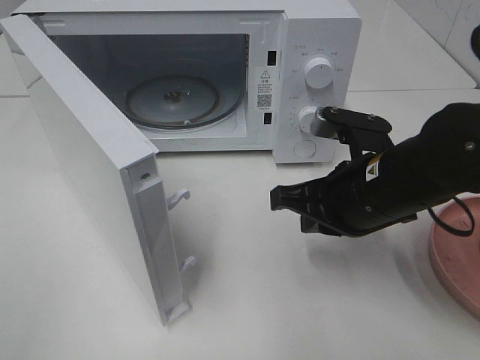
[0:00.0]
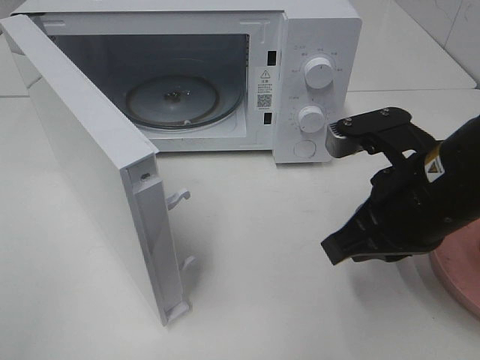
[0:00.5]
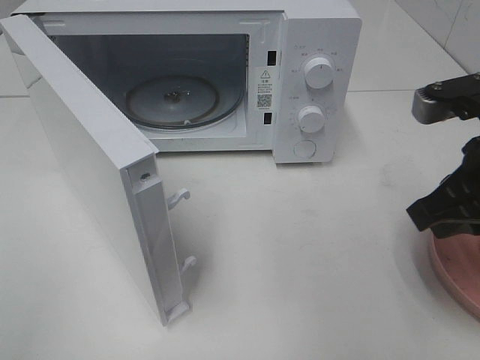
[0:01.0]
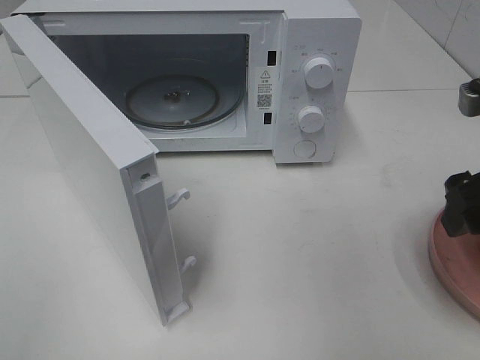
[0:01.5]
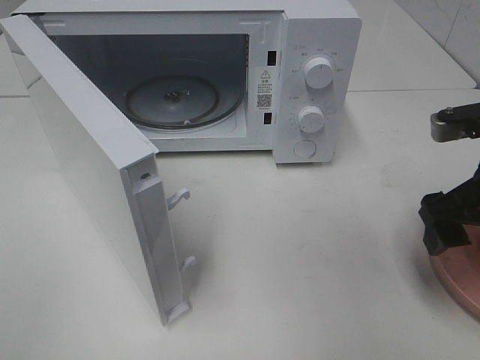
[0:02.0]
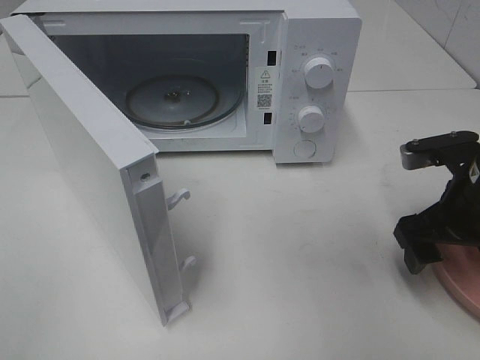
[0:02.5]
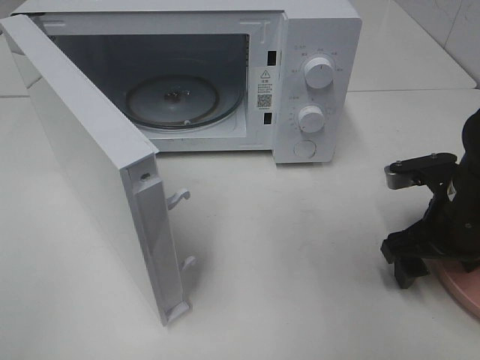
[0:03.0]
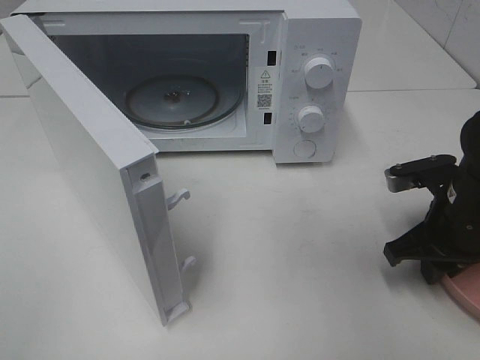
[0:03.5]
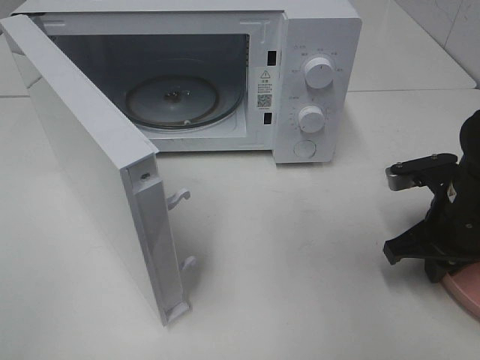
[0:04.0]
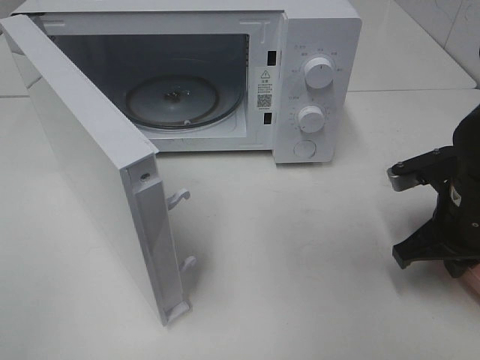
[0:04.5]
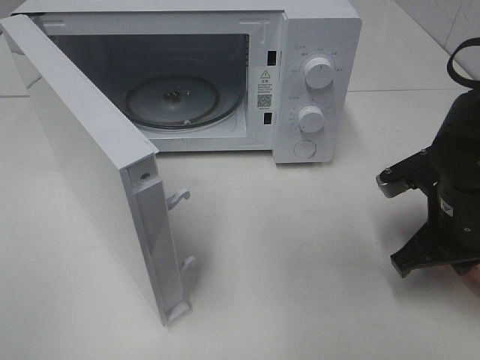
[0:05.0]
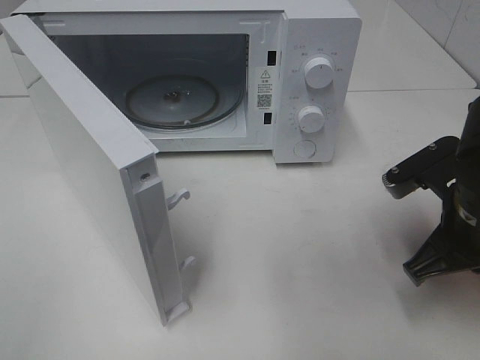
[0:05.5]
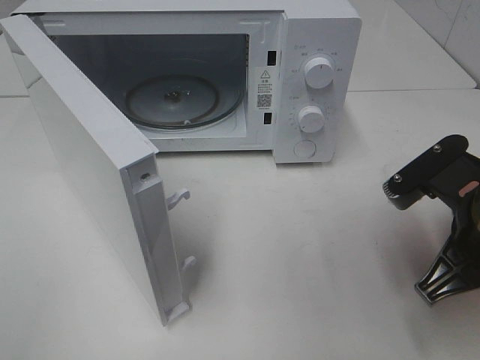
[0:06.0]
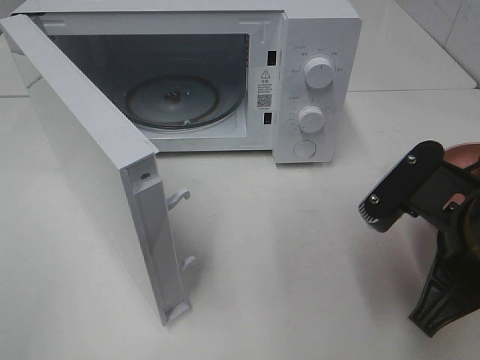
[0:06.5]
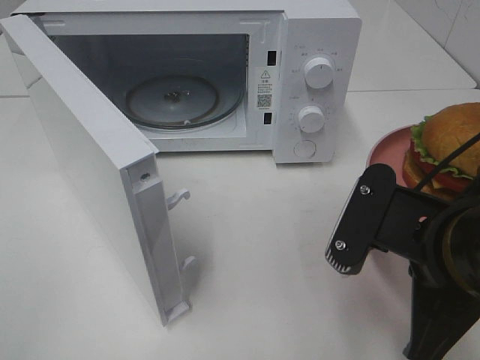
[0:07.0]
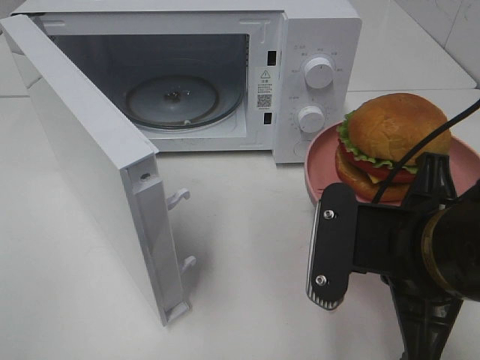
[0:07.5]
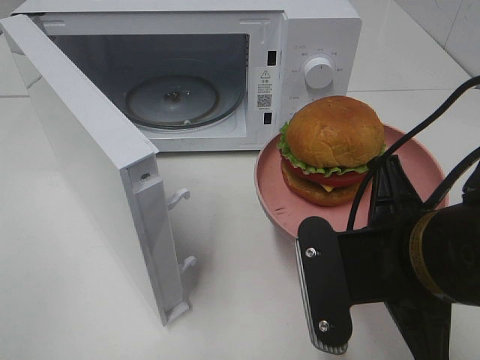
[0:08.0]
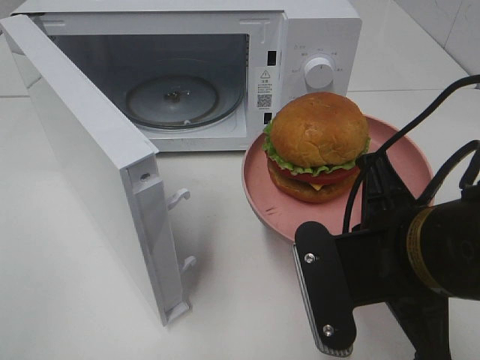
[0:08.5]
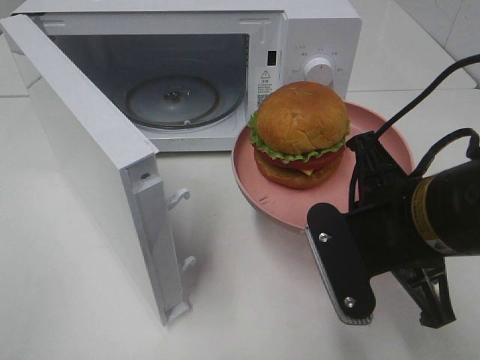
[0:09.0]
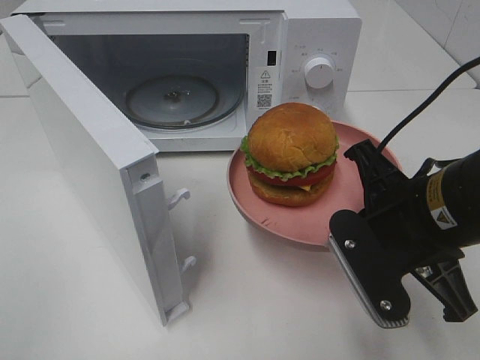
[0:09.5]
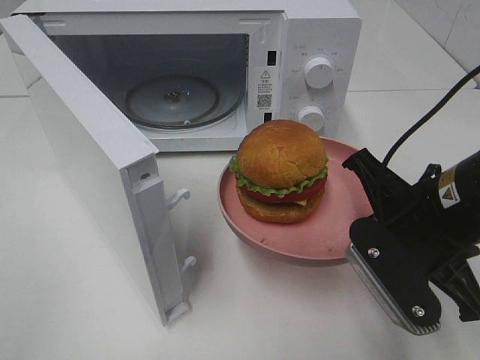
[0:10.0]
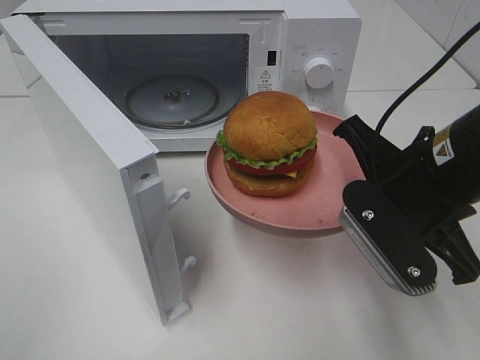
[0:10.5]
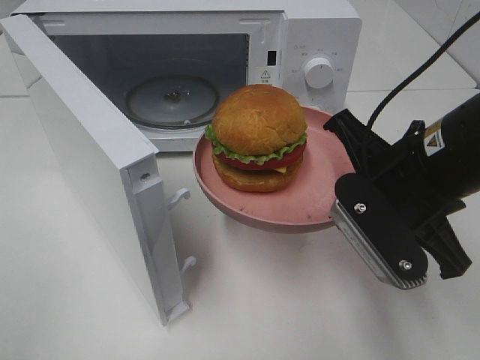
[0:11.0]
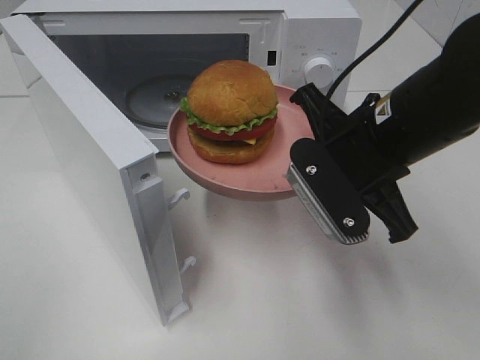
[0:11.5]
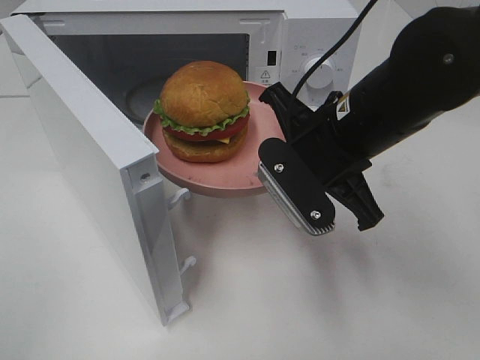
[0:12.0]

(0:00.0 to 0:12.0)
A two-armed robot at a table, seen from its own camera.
Task of the whole recording: Heat the burger.
Step, 0:00.0 - 0:04.5: Right hand: grab the plate with the hamburger.
0:00.0 - 0:02.0: The right gripper is displaced to the right by about 10 cm, and opens.
0:02.0 - 0:04.0: The right gripper is displaced downward by roughly 10 cm, and closes.
0:04.0 - 0:06.0: The right gripper heads backward and upward, covering roughly 10 cm.
0:06.0 - 0:08.0: The right gripper is displaced to the left by approximately 5 cm.
0:08.0 - 0:10.0: The right gripper goes roughly 5 cm forward.
0:10.0 - 0:12.0: The right gripper goes some 10 cm forward and to the left.

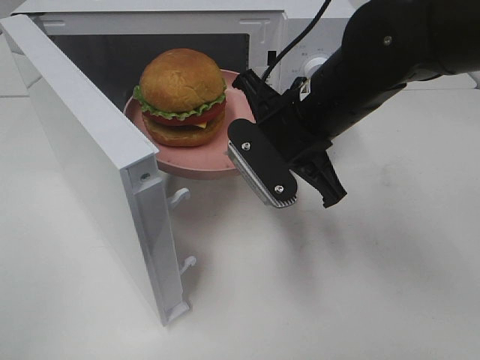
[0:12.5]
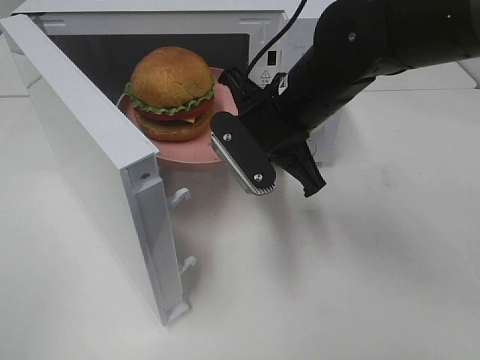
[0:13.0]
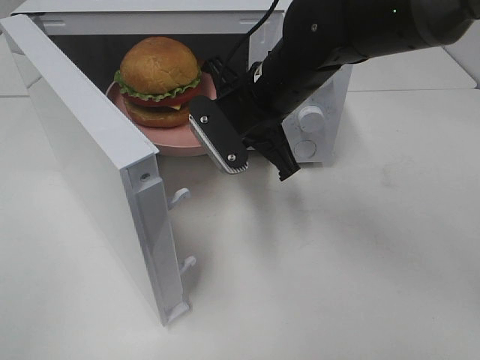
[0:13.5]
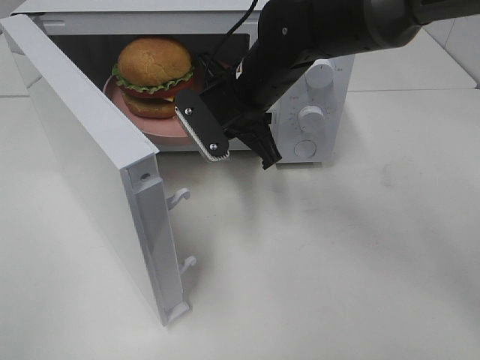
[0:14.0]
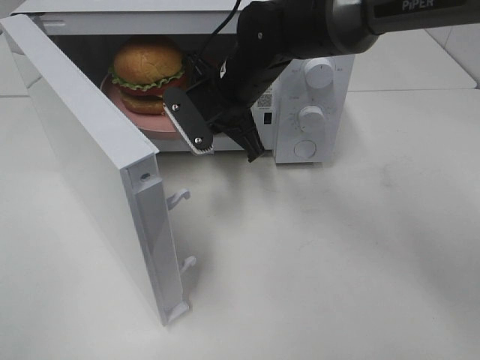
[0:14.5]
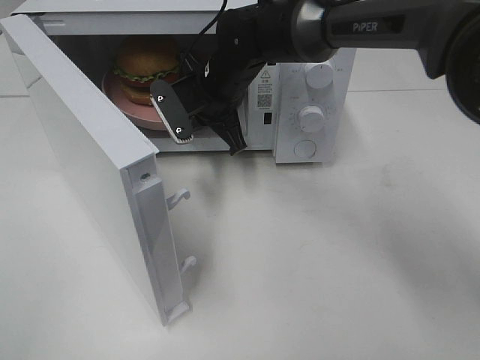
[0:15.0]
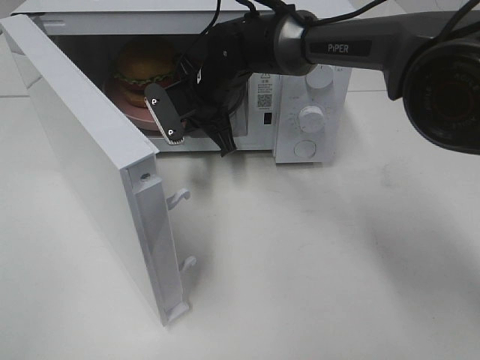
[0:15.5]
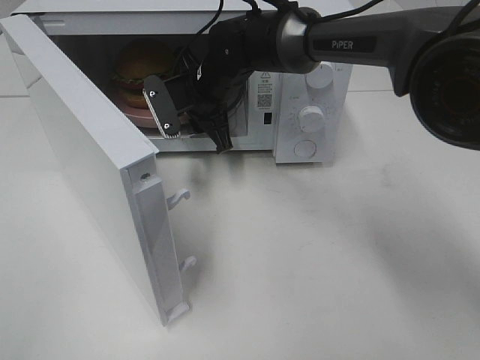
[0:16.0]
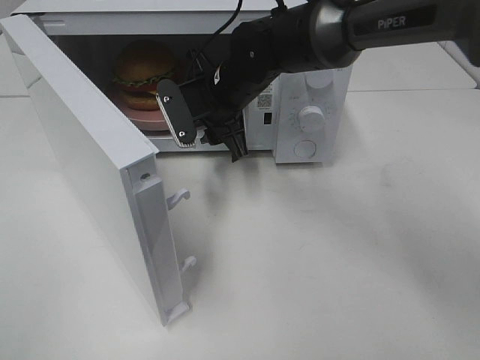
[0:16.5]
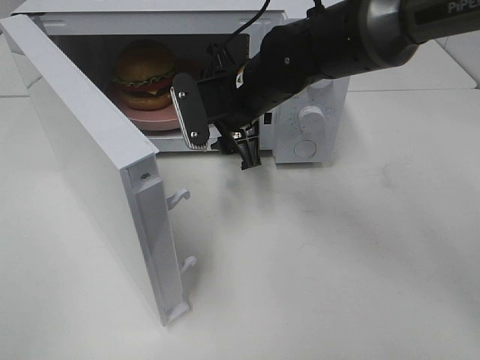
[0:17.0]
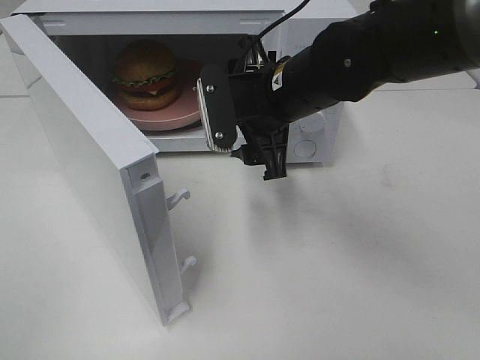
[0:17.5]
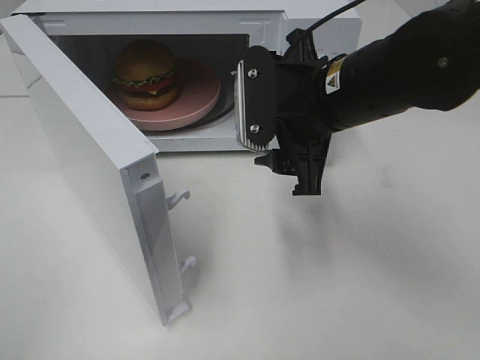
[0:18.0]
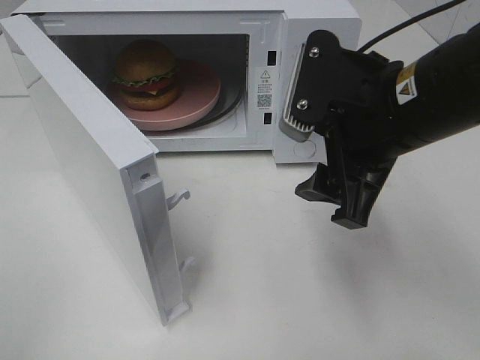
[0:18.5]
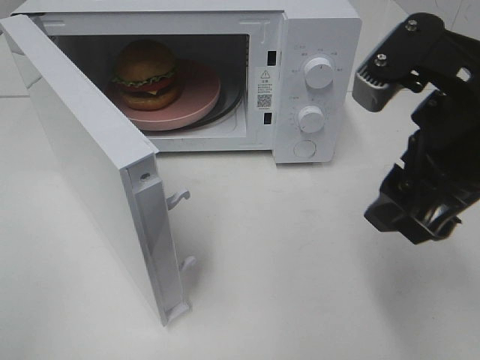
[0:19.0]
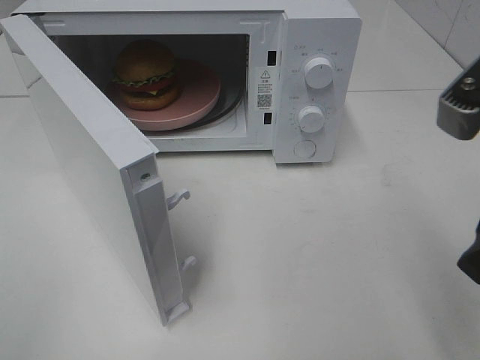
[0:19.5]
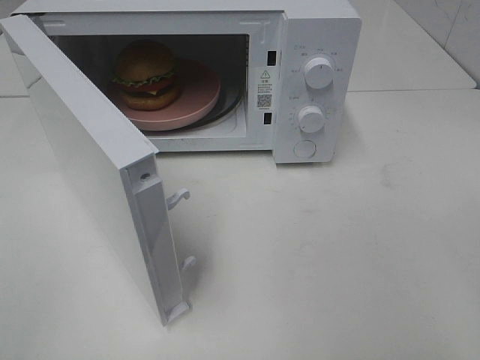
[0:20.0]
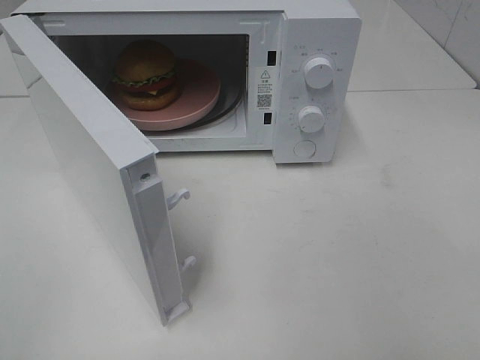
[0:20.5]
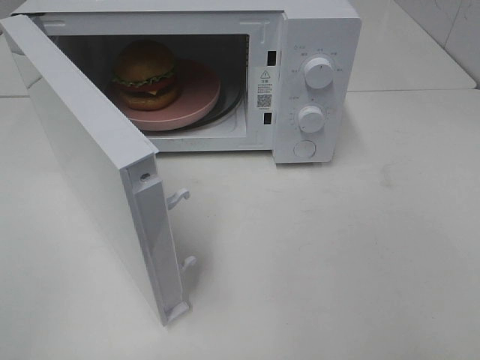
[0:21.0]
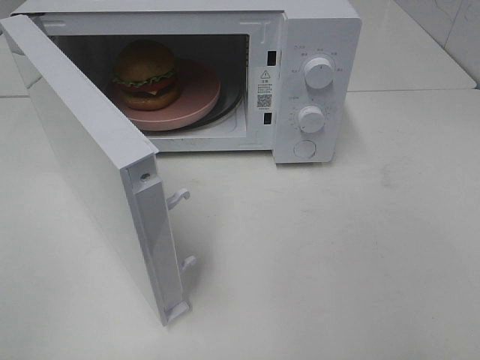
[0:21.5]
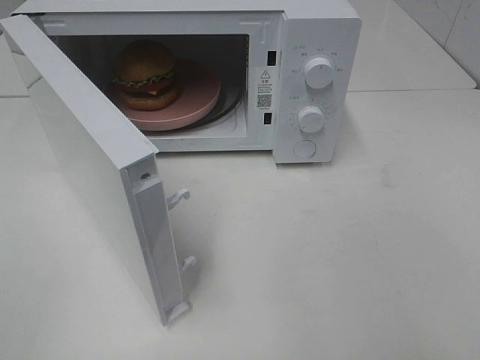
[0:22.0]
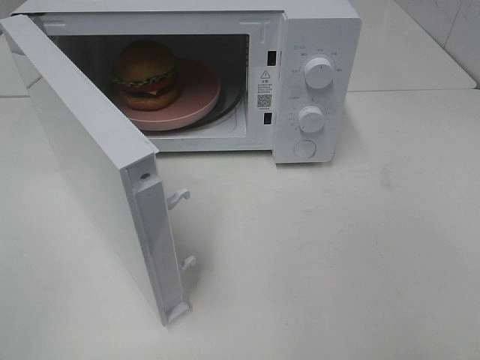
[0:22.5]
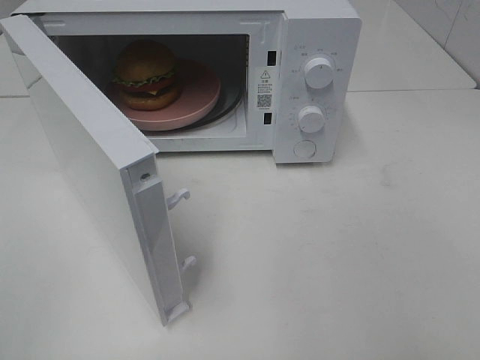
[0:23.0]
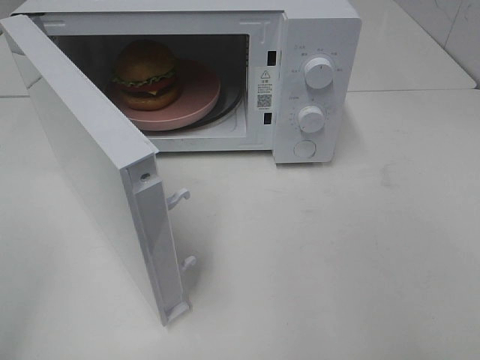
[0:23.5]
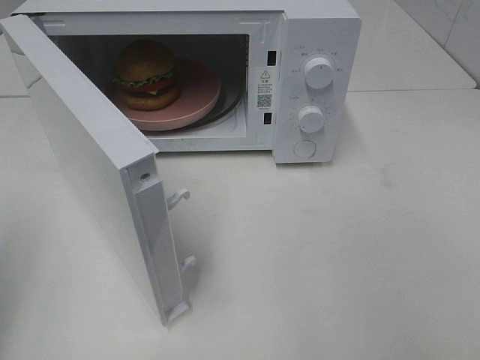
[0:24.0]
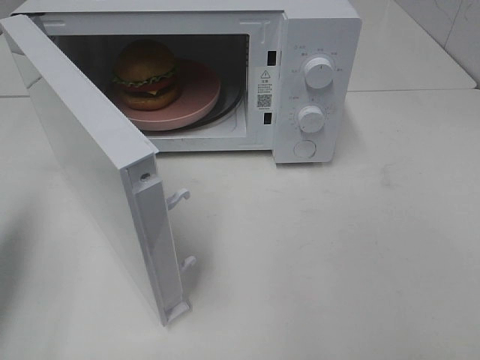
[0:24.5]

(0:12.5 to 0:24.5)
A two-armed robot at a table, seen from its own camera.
Task of the whole recording: Heat the burger.
Step, 0:12.5 - 0:16.5: Right hand: place the plate in the microwave.
0:12.5 - 0:14.5: The right gripper moves forward and to the left, approximately 15 cm.
0:14.5 - 0:16.5: The right gripper opens.
0:16.5 - 0:18.5: The right gripper travels backward, to the right and upward by about 25 cm.
0:18.5 - 0:20.5: The right gripper moves backward and to the right, some 25 cm.
0:22.5 - 0:24.5: The left gripper goes roughly 20 cm forward, and closes its fingers.

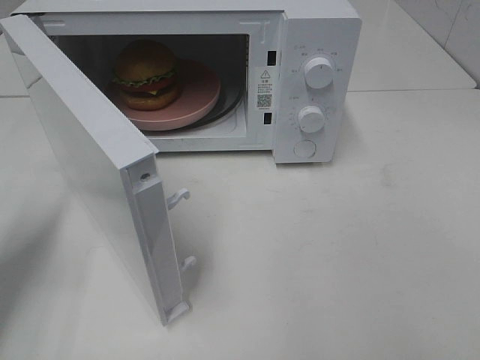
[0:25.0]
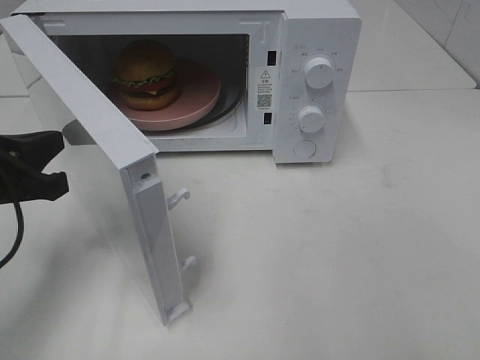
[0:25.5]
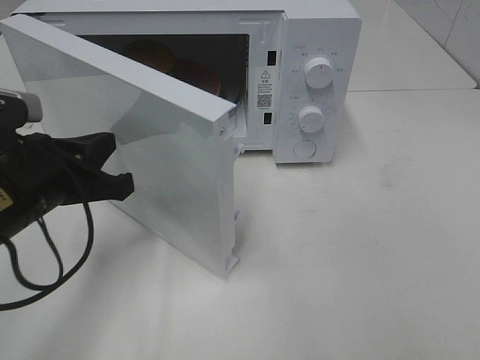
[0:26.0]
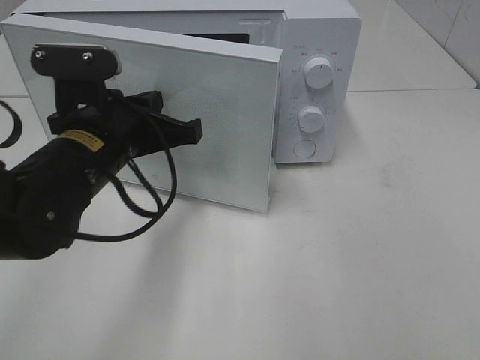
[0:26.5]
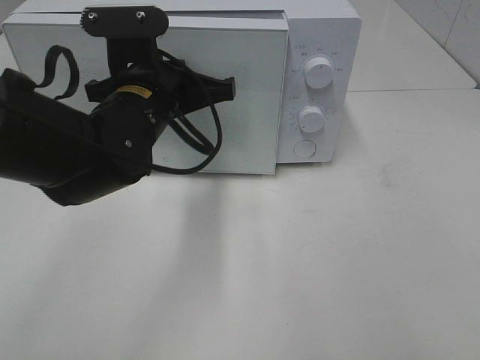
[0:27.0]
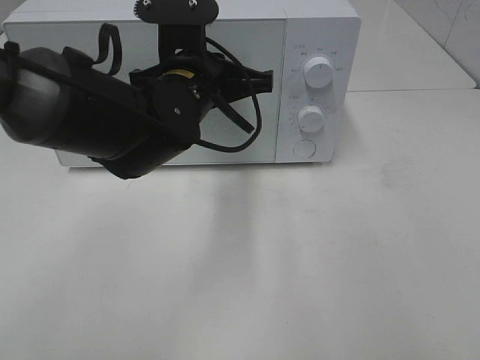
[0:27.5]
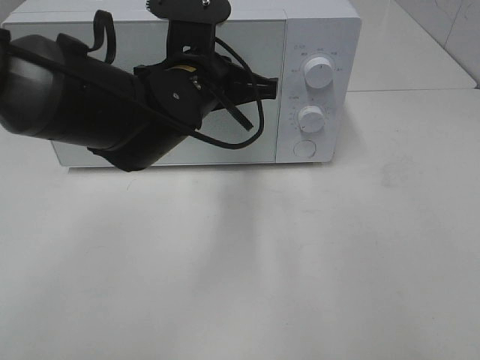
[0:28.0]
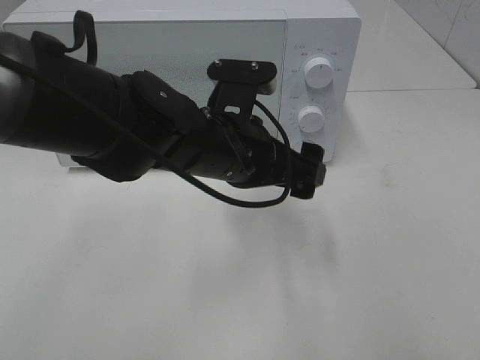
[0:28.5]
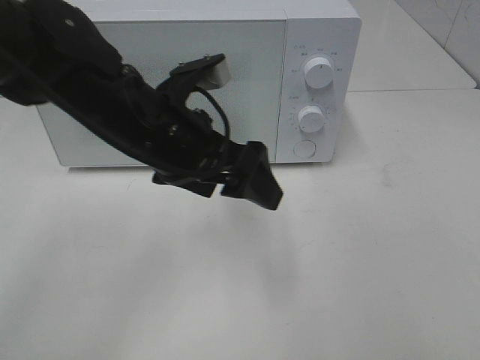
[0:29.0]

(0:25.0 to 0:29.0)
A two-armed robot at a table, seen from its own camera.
Task of the whole recording: Heat the burger.
Step, 0:25.0 - 0:28.0: Left hand: close the microwave door.
0:25.0 - 0:27.0: The left gripper is displaced to the right by about 25 cm.
0:27.0 - 0:29.0: The left gripper opens.
